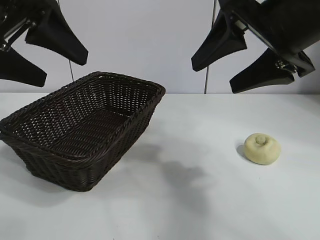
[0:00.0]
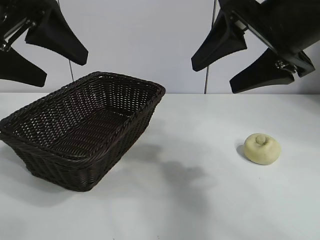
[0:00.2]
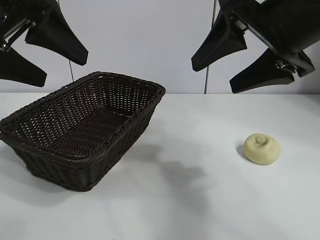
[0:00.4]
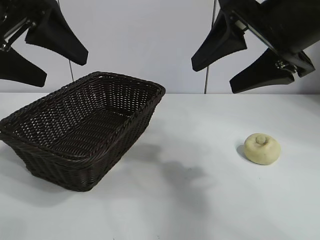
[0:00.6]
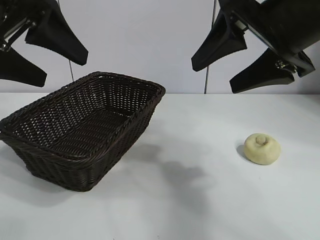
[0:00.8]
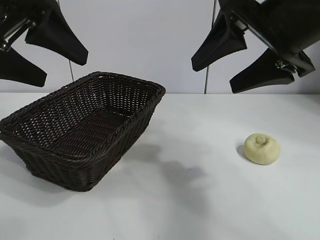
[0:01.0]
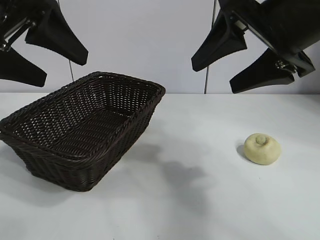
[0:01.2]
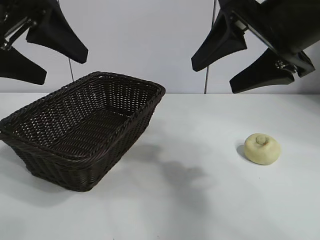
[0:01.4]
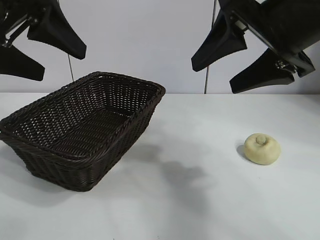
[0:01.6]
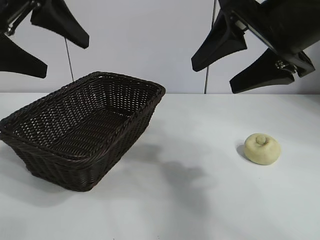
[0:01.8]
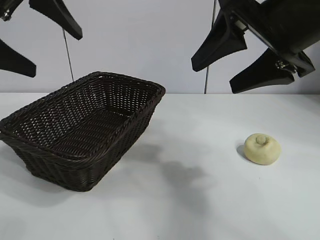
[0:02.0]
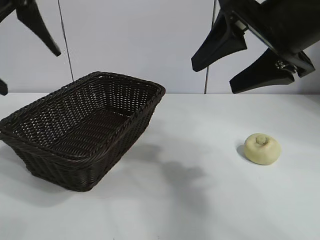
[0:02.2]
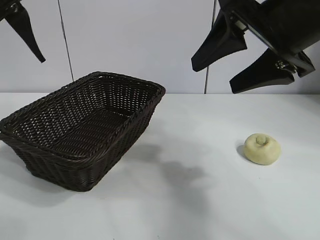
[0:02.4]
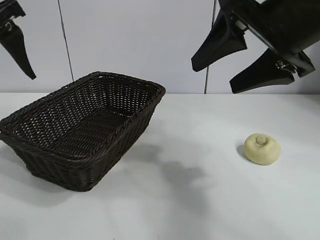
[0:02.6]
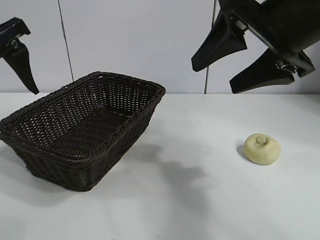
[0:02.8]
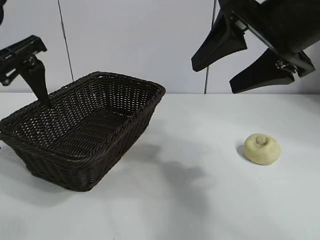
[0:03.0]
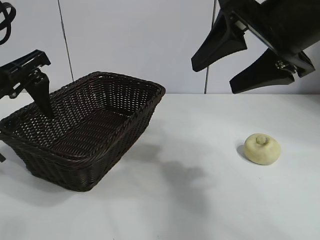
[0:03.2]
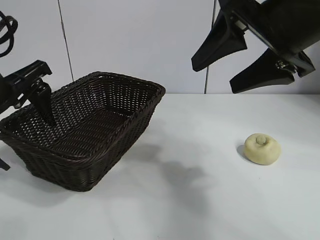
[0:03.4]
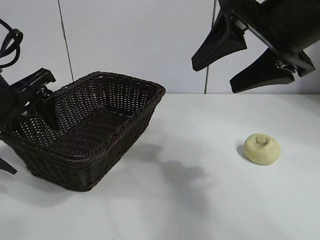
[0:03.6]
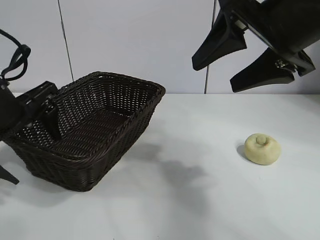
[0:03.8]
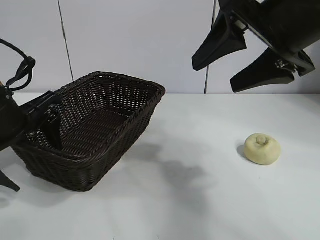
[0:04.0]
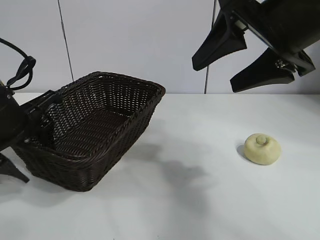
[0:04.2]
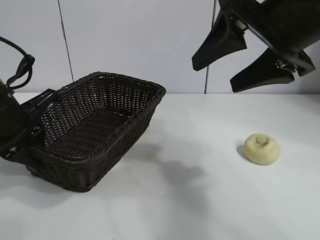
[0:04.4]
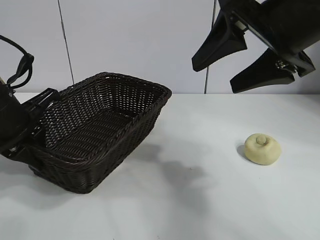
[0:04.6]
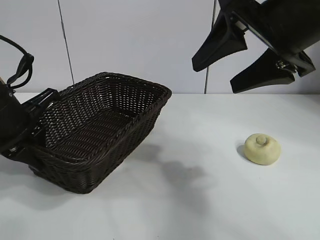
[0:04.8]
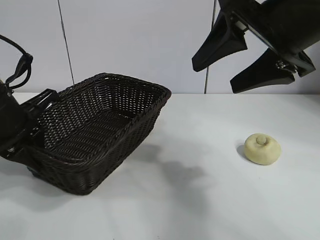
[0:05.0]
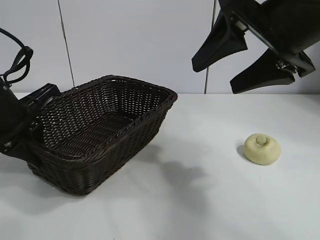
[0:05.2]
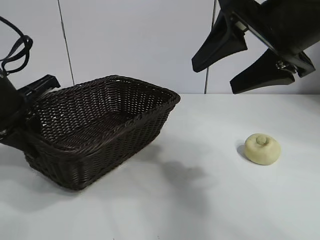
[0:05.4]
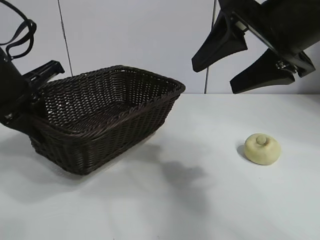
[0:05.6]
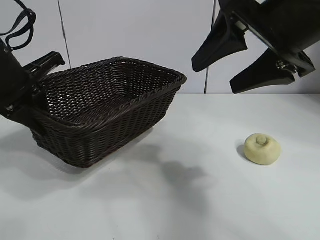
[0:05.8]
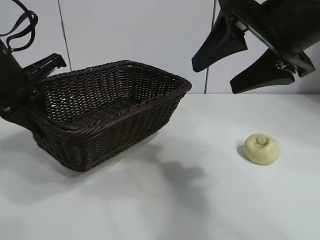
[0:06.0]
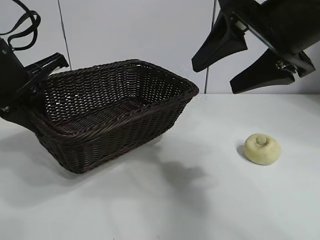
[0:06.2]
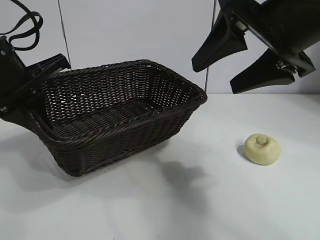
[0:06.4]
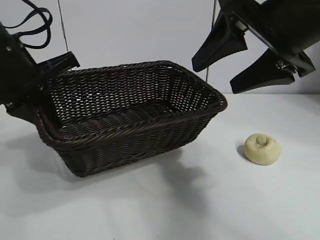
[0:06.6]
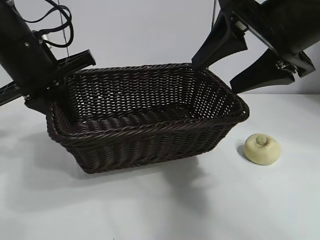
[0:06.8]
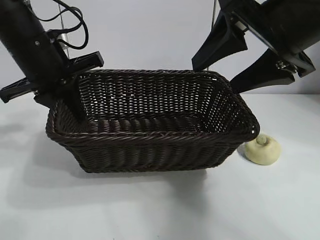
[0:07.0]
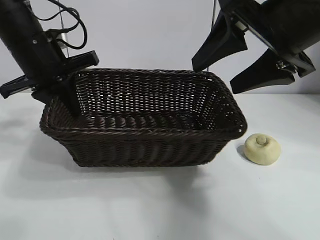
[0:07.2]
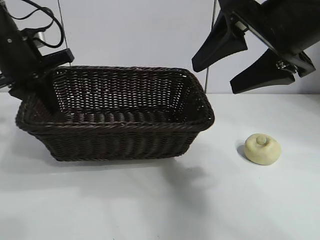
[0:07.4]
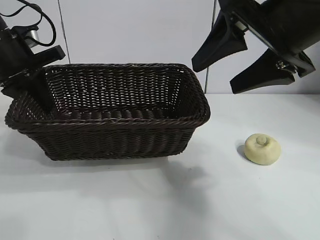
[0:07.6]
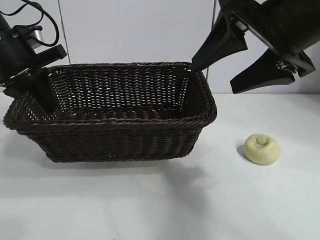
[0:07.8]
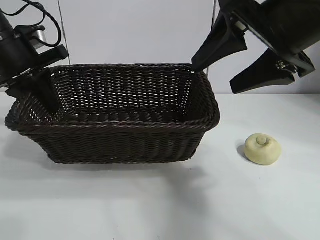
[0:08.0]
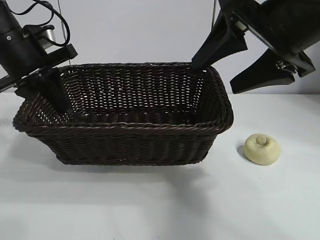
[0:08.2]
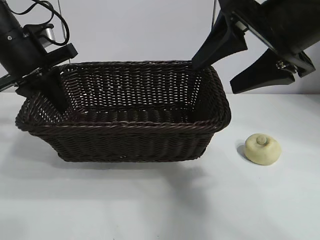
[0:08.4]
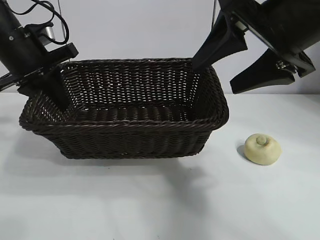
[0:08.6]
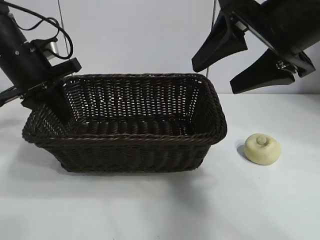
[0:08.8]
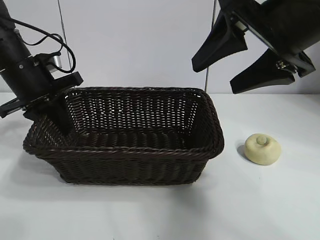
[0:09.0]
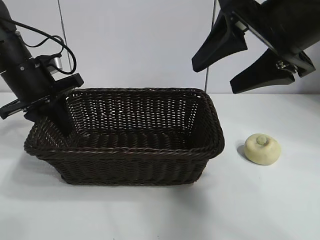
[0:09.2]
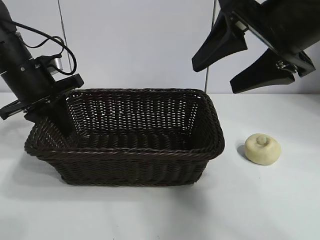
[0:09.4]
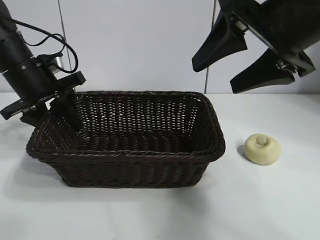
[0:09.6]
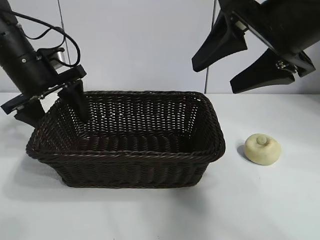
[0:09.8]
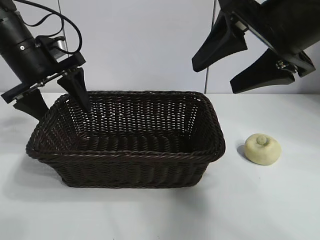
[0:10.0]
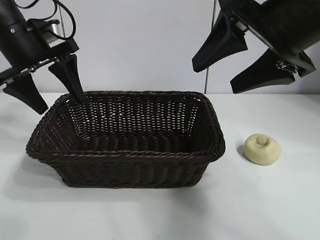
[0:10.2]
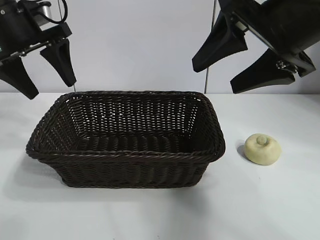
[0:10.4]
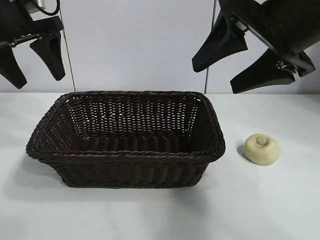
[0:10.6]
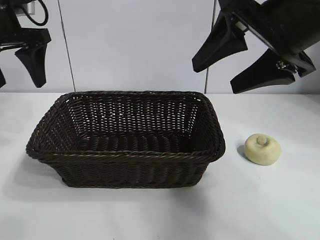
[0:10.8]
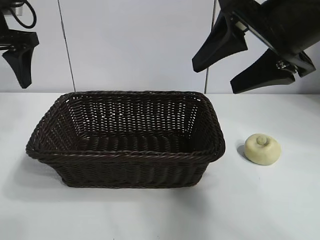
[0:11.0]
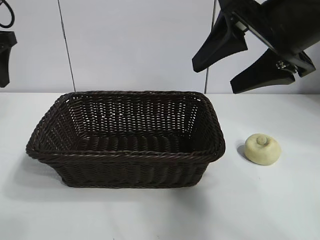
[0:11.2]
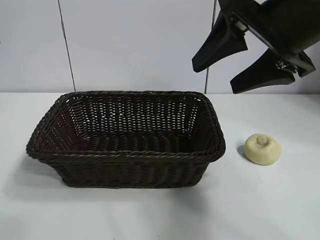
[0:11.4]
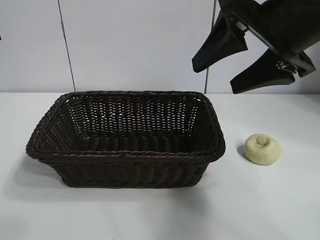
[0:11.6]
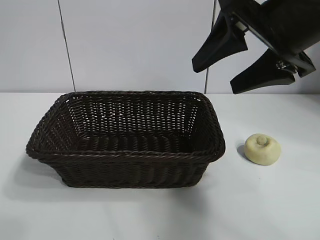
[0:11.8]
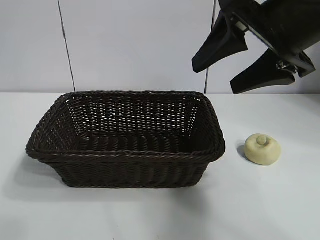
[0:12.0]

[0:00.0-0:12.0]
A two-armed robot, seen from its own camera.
Task of the whole recording: pick up the egg yolk pastry and put it into the basket.
Step, 0:01.4 to 0:04.4: Grasp the basket with left gripper.
Step, 0:04.6 to 0:09.8: Place the basket in the center of view with left gripper.

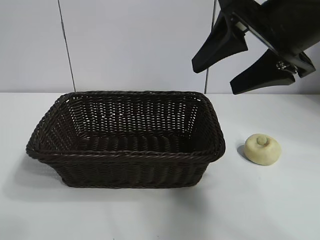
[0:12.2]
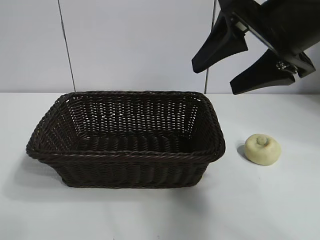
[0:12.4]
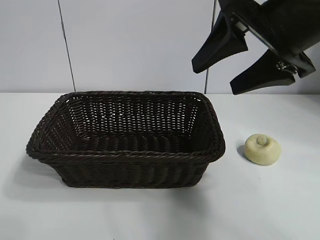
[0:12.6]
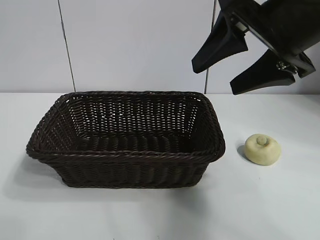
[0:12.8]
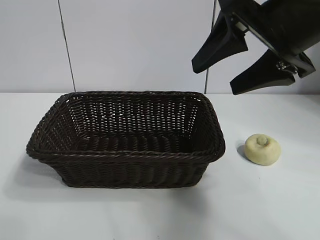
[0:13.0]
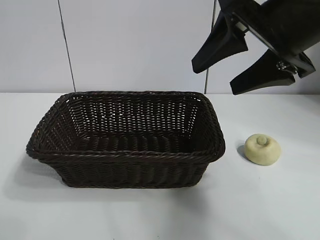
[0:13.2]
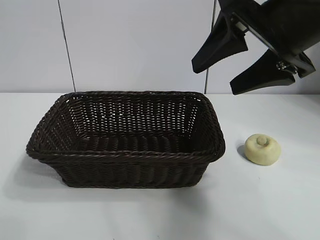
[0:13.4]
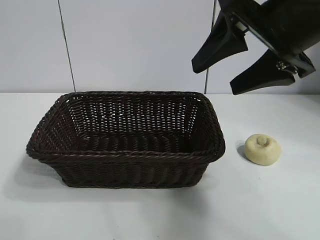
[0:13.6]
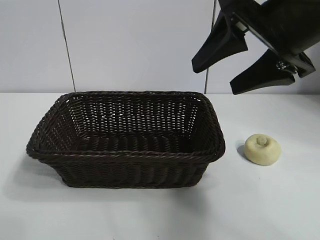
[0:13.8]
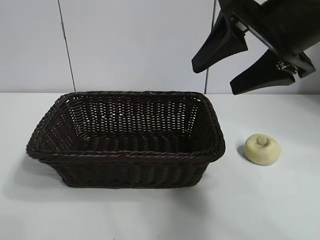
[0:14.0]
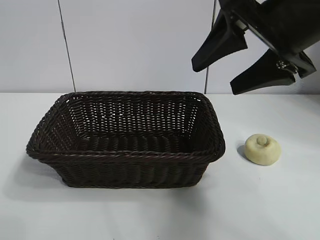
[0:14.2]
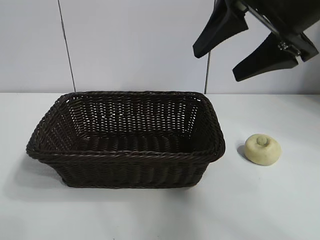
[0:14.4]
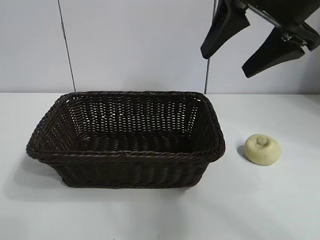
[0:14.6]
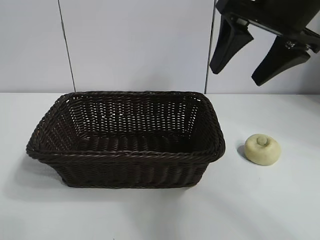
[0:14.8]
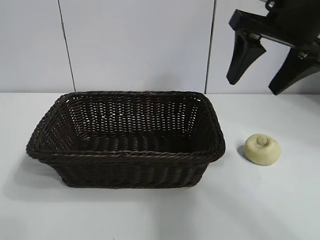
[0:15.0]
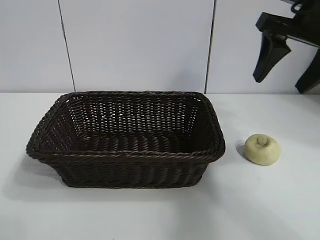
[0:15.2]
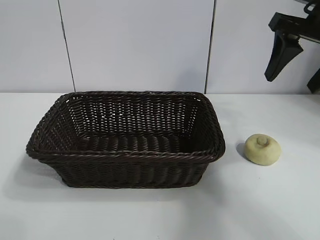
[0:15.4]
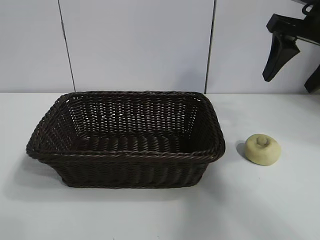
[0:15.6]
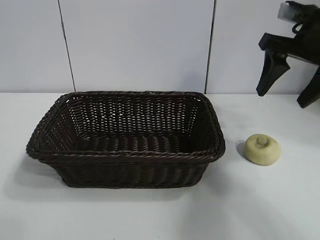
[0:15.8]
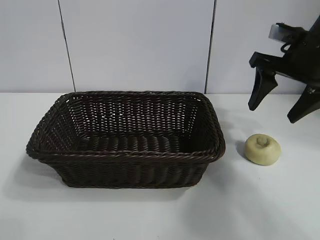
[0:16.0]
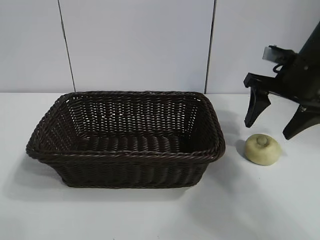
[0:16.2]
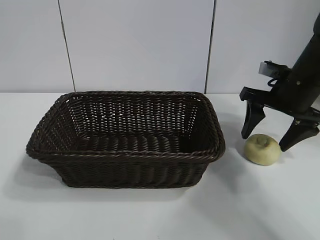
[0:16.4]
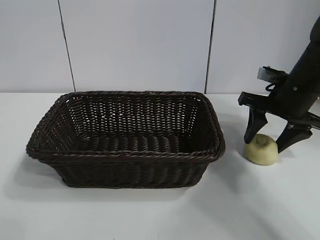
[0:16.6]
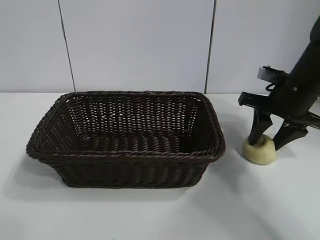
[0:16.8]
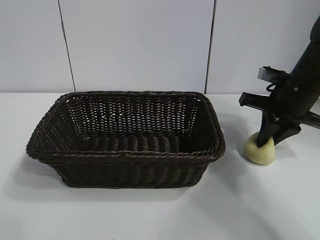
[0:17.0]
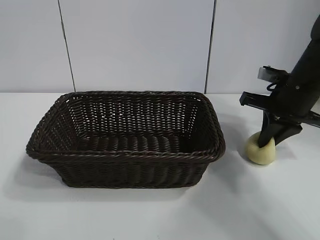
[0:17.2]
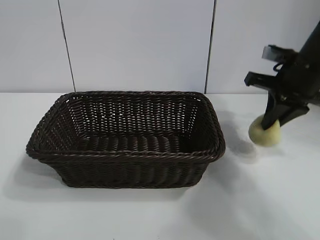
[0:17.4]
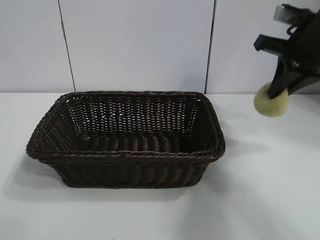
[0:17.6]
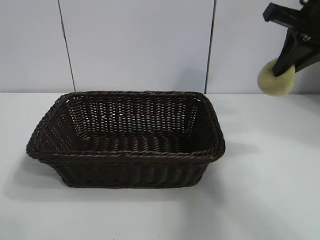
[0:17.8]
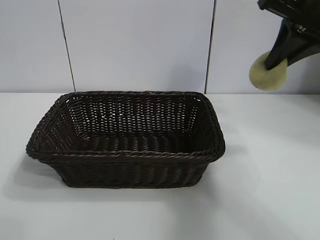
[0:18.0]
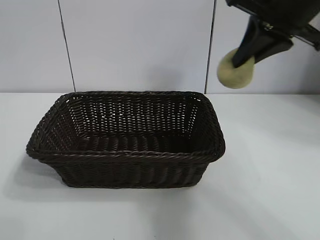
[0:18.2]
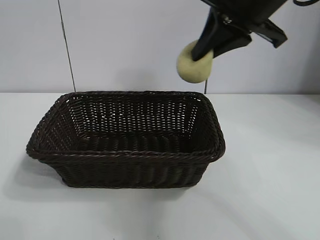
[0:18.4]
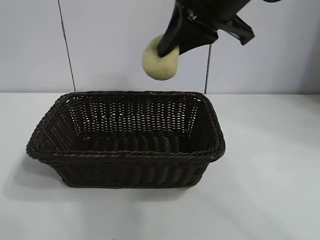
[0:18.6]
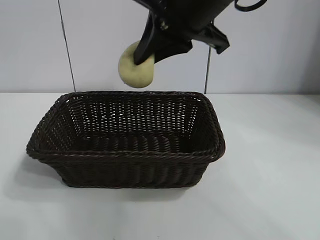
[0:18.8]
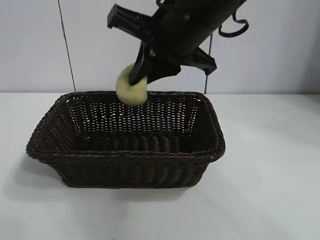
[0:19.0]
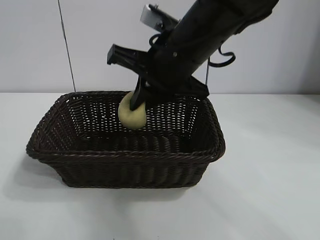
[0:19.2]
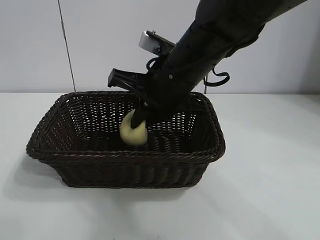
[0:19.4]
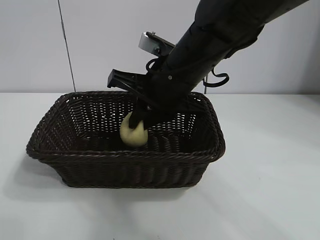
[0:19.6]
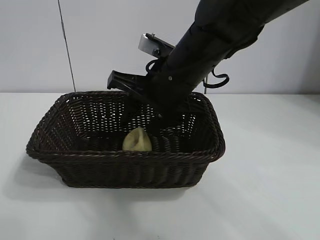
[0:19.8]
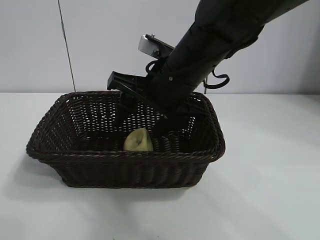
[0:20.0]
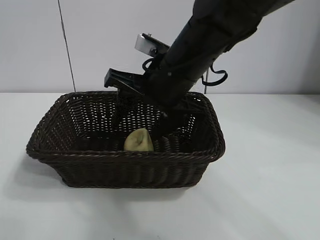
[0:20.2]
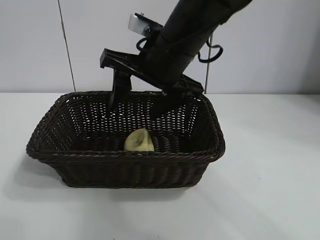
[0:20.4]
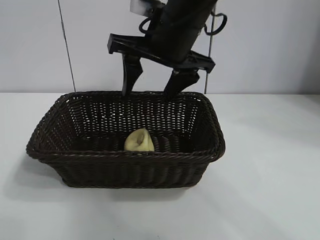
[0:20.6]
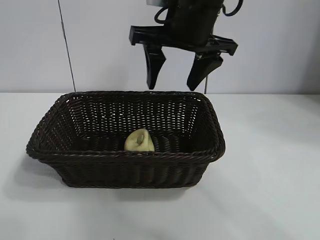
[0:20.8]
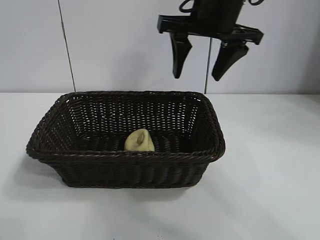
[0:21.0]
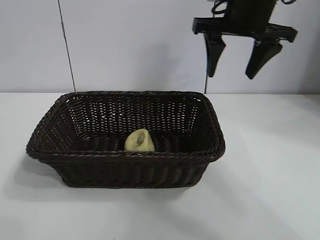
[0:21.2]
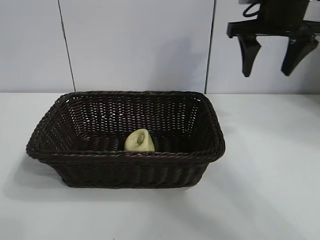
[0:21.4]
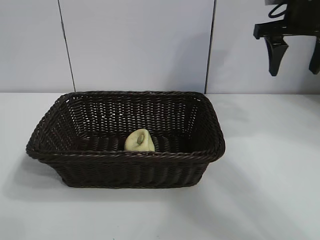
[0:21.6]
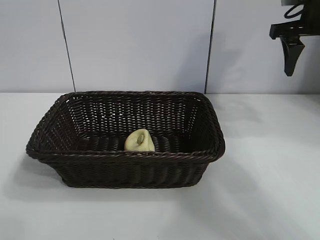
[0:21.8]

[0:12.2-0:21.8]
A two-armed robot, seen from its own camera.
Task of the whole recording: pick up the egg yolk pastry and put it into the basket.
Step, 0:12.2 to 0:17.0: Grasp egg yolk pastry with right gripper.
Step, 0:17.2 to 0:20.0: Place the egg yolk pastry in the basket with right gripper.
